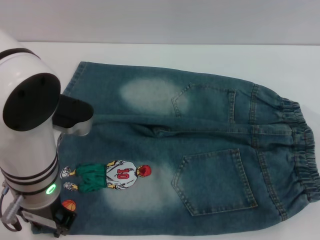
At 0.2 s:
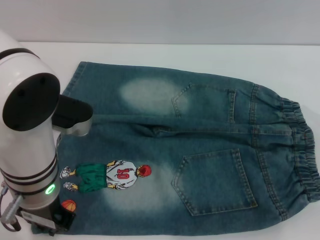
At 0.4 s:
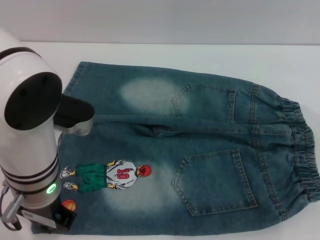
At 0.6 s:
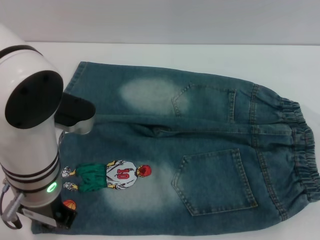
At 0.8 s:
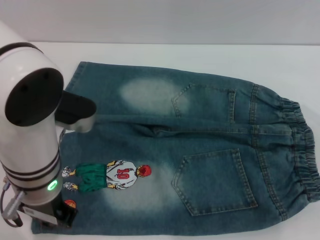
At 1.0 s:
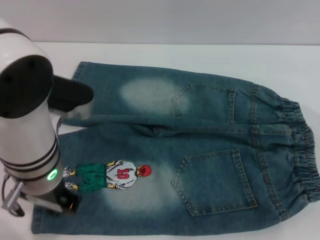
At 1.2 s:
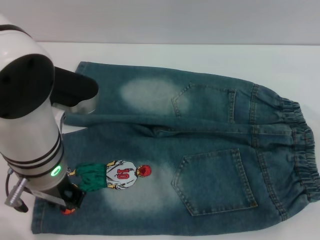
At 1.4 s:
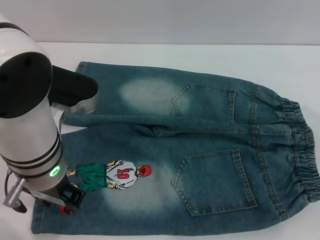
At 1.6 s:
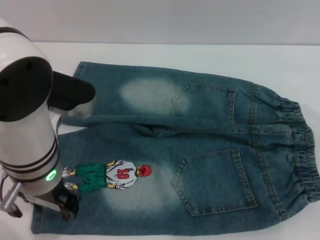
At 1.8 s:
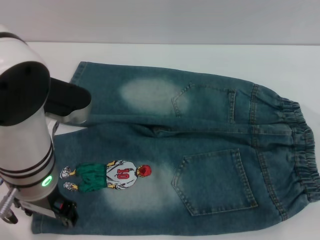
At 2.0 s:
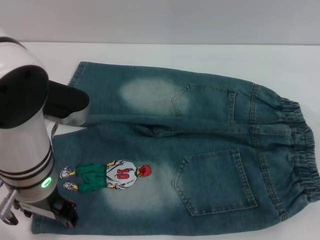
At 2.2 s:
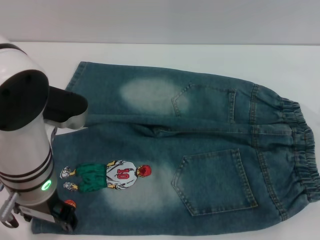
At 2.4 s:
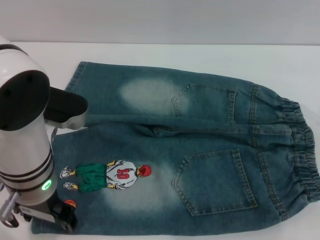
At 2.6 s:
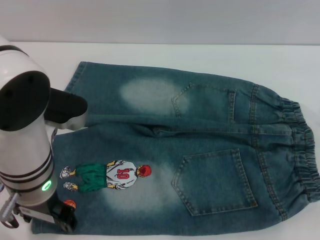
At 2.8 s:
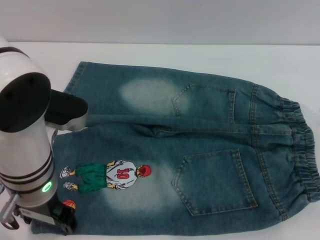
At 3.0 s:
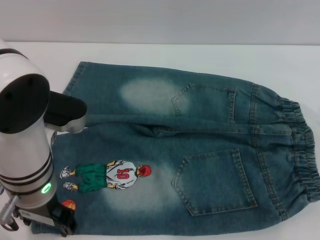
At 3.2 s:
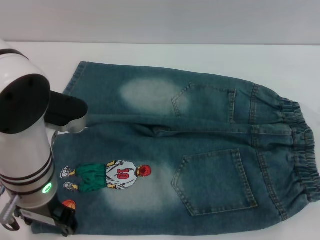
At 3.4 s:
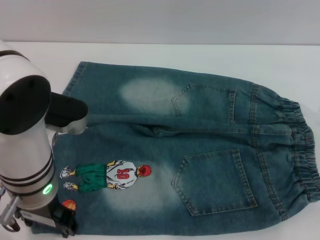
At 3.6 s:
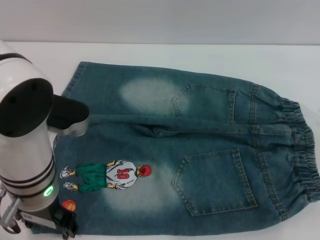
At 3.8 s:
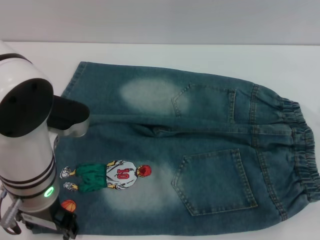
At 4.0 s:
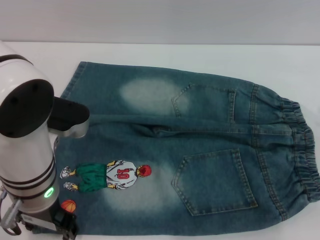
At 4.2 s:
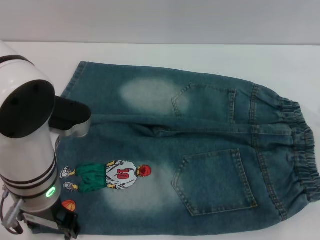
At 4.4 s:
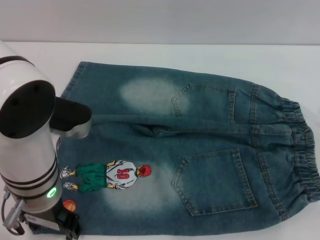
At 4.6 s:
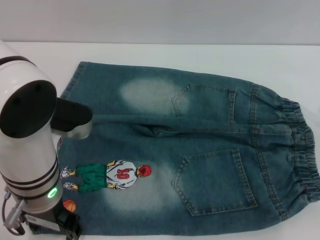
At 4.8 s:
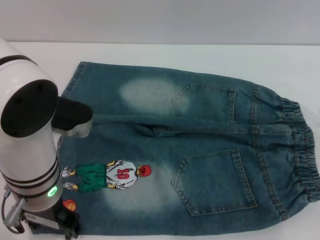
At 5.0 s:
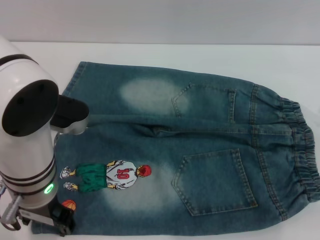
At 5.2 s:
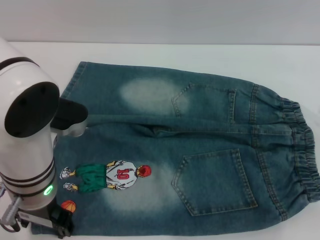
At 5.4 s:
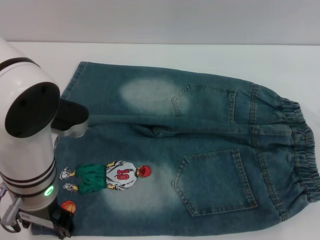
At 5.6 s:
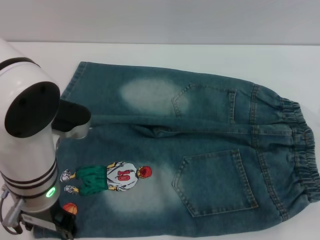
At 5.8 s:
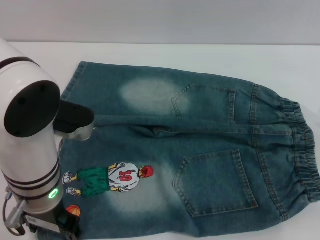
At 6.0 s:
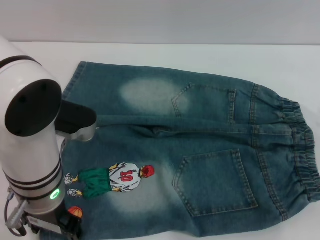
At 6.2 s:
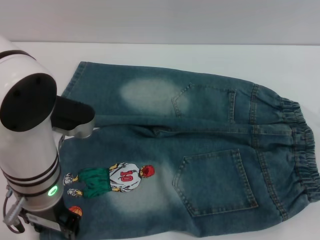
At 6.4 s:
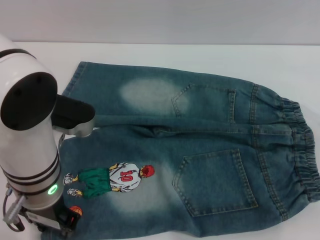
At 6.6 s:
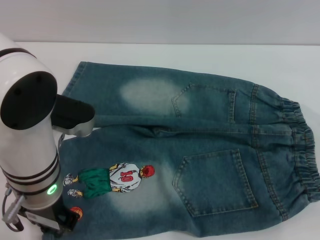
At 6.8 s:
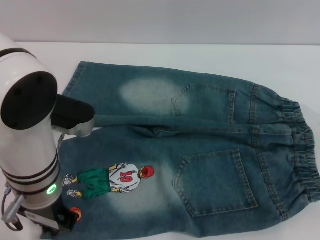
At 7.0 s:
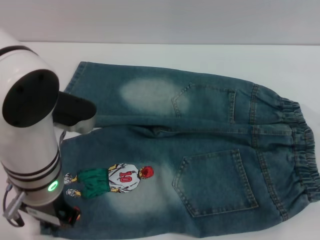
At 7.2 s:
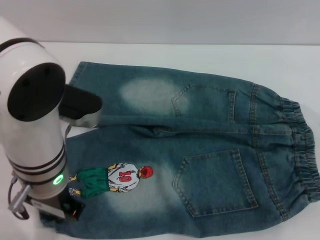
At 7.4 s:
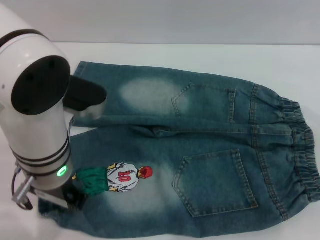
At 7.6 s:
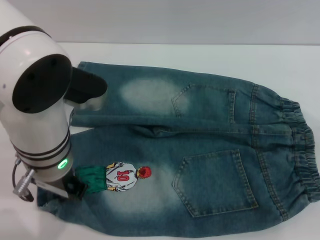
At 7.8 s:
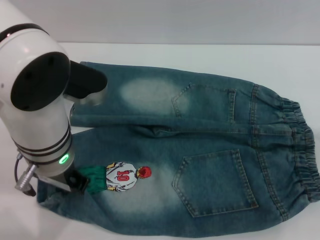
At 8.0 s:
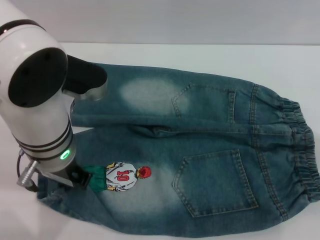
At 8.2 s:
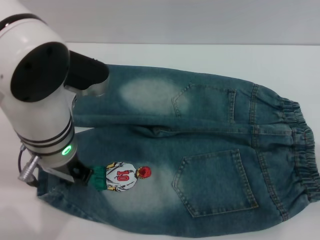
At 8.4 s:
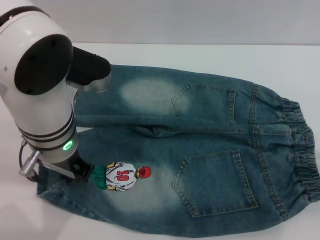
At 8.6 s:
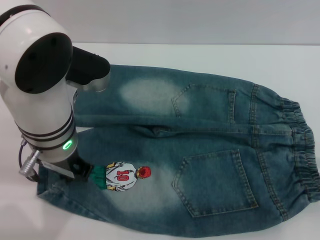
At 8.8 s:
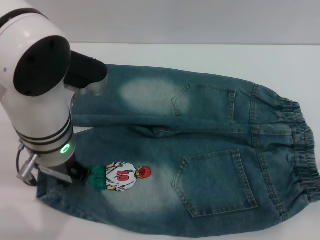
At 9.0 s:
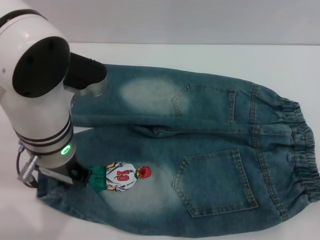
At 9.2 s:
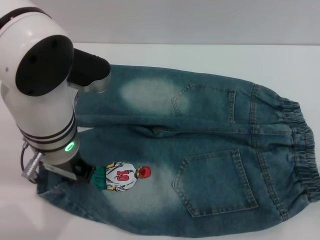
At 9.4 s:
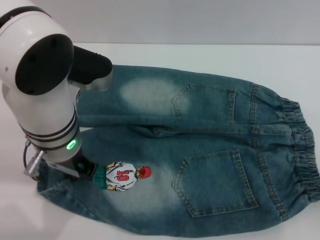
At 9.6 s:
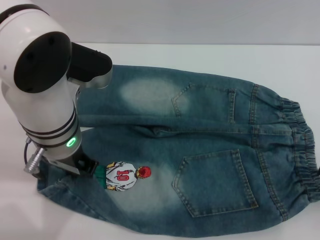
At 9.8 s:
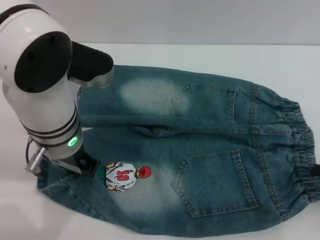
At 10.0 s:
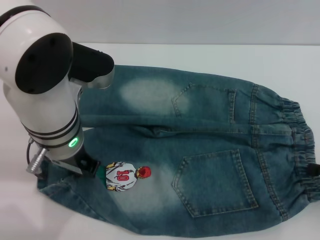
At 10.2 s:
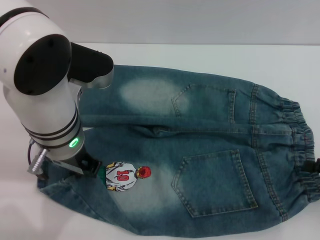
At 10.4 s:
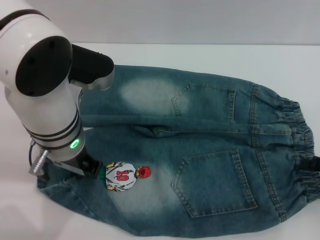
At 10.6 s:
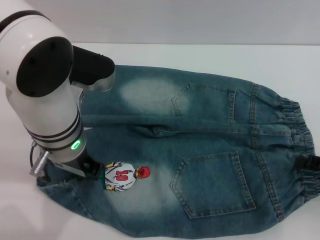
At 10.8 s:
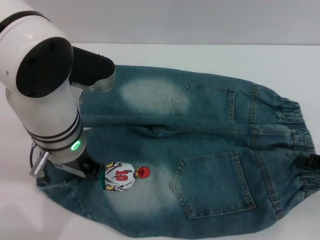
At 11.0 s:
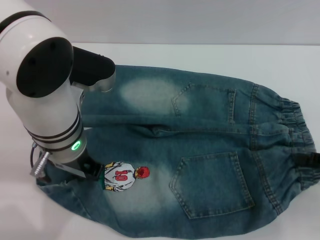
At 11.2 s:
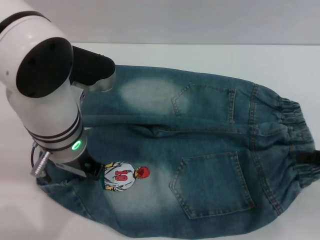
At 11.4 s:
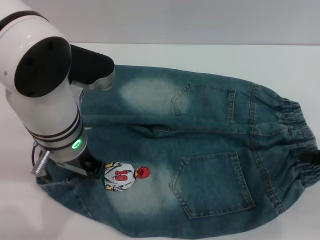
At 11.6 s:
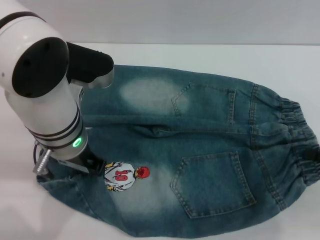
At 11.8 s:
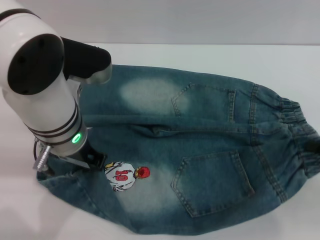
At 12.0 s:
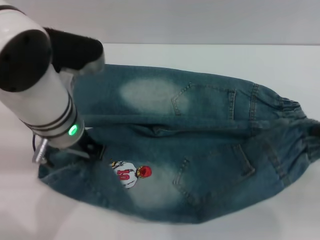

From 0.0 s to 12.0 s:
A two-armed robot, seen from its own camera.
From 0.0 s to 1.6 s: The left gripper closes, then reopens.
From 1.6 s to 3.0 s: The left gripper opens up.
From 3.0 s to 6.0 s: The two grippers keep their place.
From 6.0 s to 7.6 s: The left gripper closes.
From 9.0 s to 10.4 s: The grippers move only a little.
From 10.4 s to 12.0 s: The right gripper closes its fingers.

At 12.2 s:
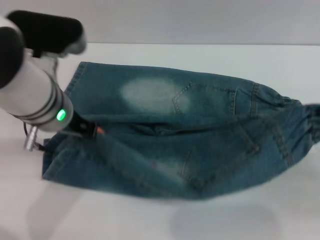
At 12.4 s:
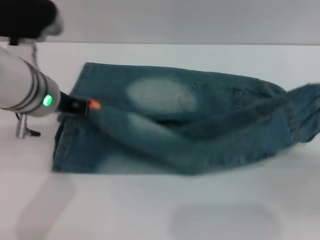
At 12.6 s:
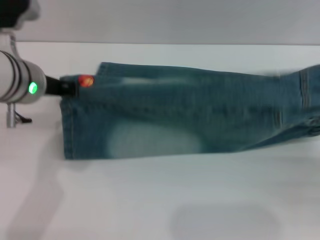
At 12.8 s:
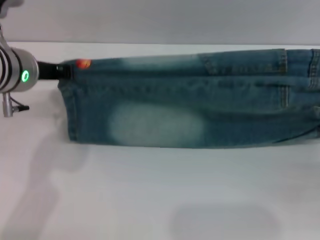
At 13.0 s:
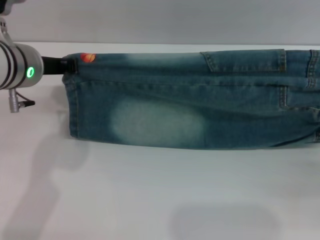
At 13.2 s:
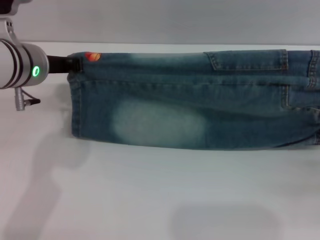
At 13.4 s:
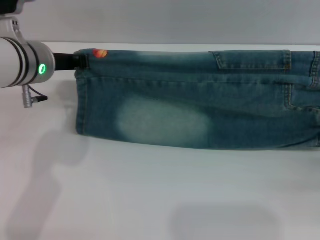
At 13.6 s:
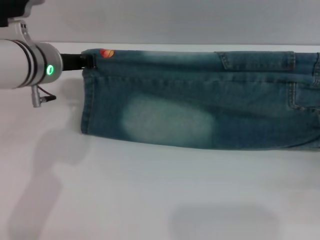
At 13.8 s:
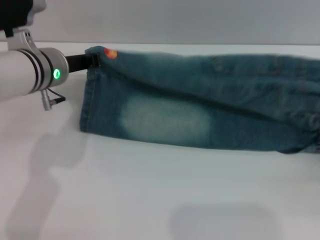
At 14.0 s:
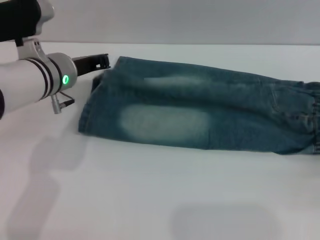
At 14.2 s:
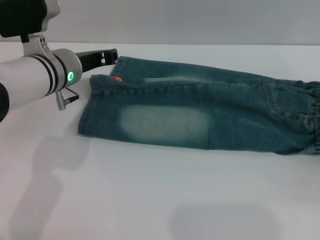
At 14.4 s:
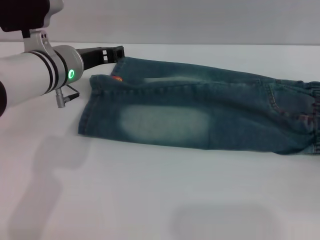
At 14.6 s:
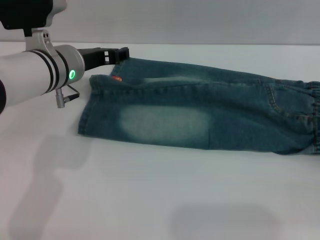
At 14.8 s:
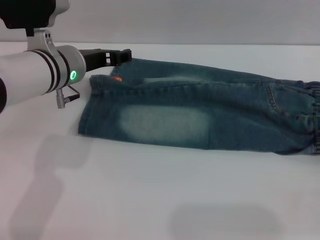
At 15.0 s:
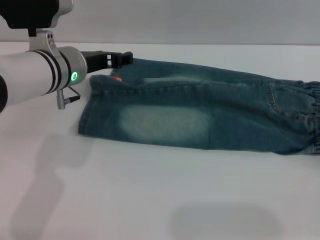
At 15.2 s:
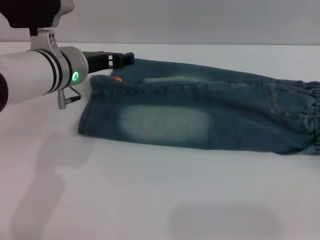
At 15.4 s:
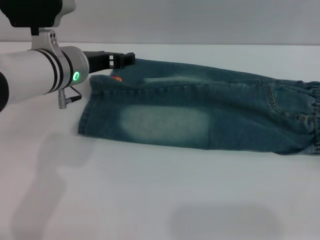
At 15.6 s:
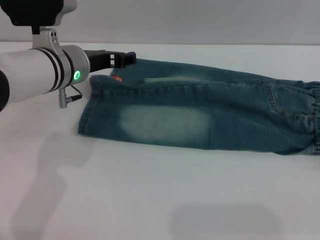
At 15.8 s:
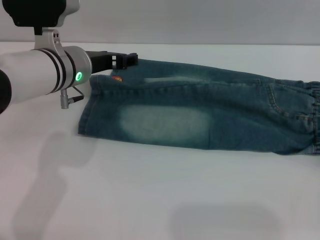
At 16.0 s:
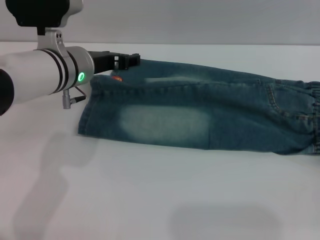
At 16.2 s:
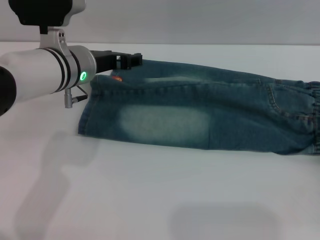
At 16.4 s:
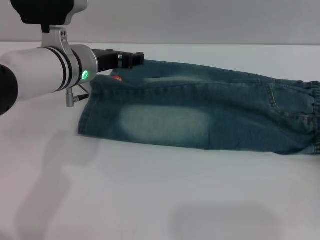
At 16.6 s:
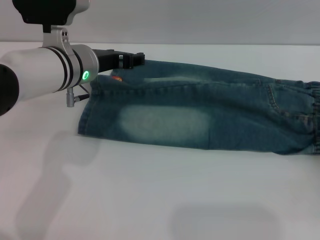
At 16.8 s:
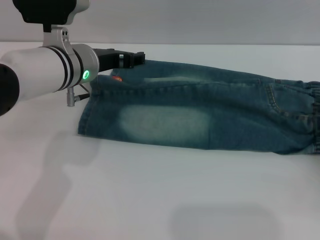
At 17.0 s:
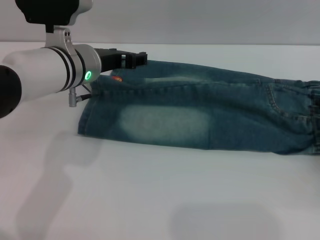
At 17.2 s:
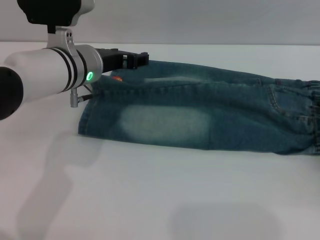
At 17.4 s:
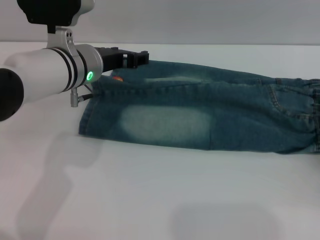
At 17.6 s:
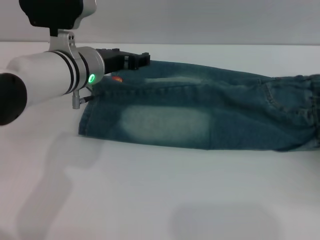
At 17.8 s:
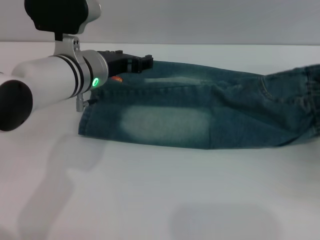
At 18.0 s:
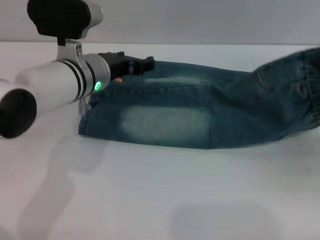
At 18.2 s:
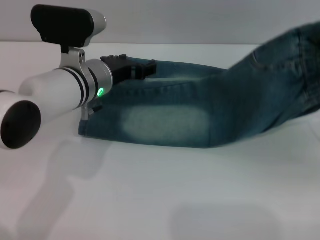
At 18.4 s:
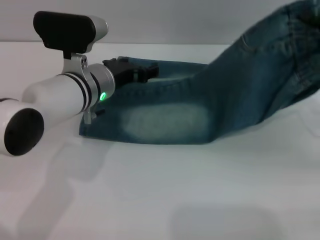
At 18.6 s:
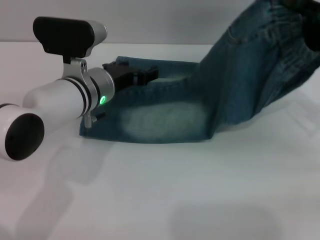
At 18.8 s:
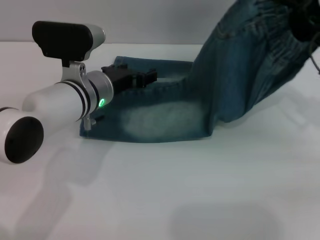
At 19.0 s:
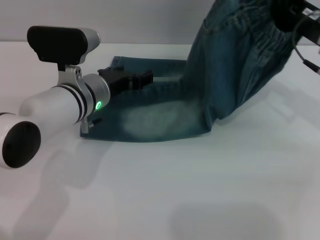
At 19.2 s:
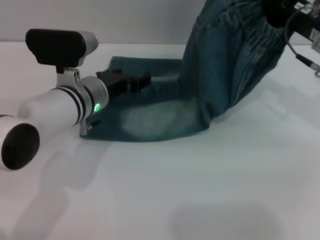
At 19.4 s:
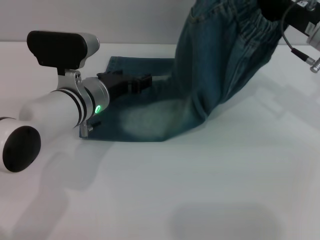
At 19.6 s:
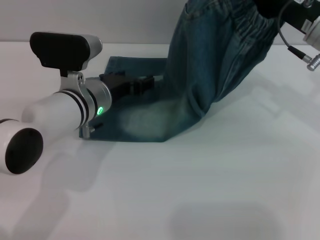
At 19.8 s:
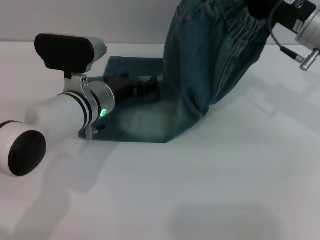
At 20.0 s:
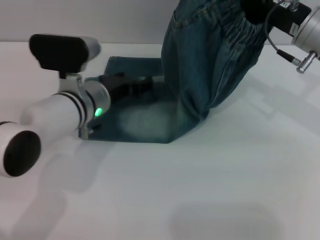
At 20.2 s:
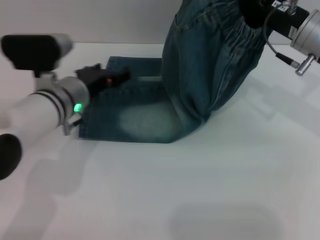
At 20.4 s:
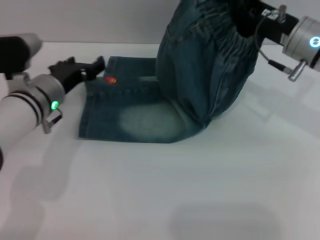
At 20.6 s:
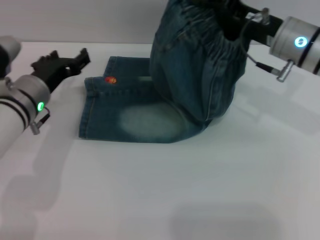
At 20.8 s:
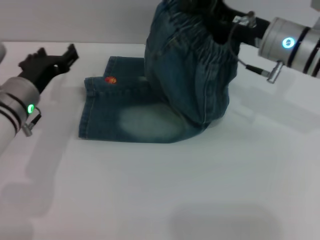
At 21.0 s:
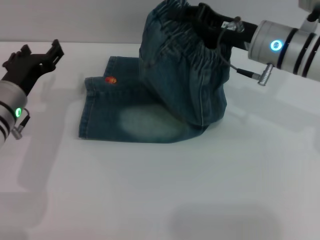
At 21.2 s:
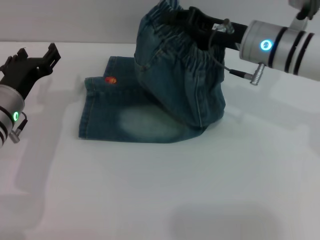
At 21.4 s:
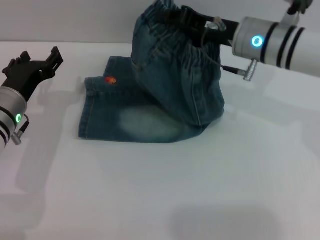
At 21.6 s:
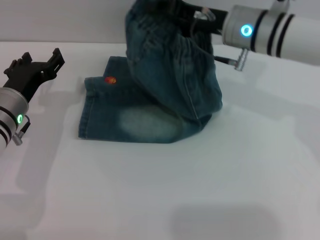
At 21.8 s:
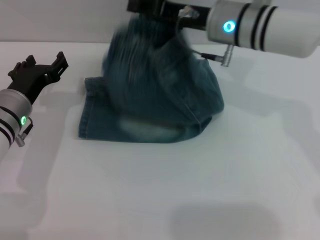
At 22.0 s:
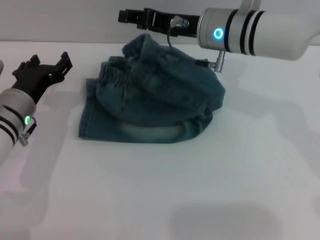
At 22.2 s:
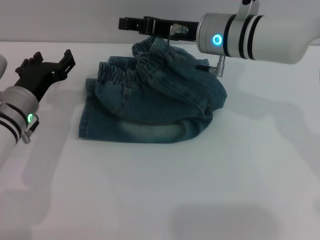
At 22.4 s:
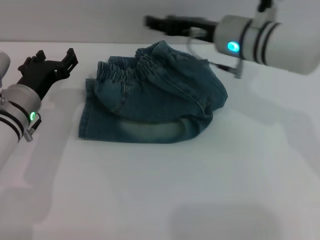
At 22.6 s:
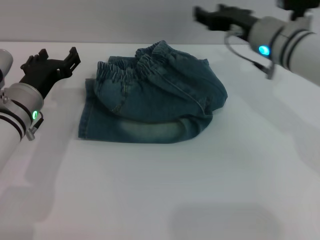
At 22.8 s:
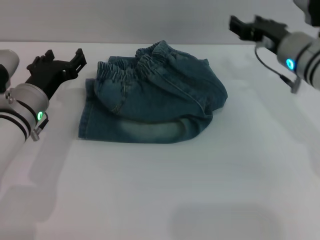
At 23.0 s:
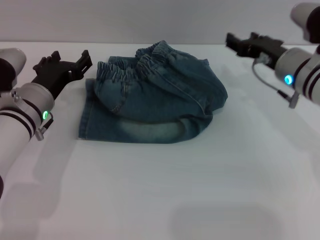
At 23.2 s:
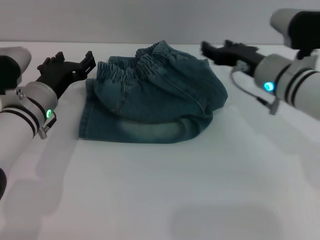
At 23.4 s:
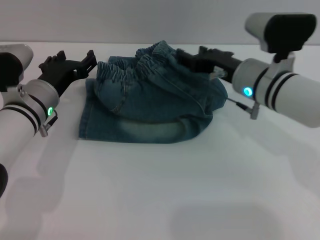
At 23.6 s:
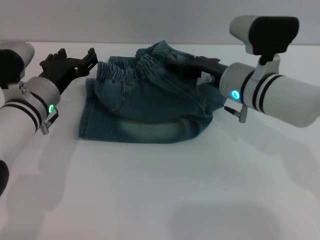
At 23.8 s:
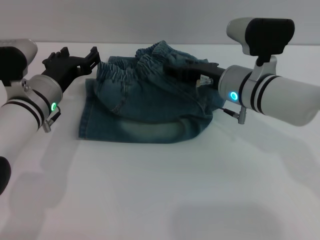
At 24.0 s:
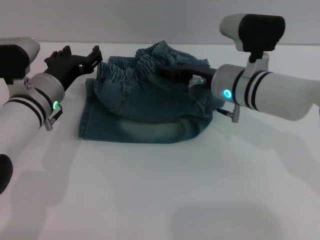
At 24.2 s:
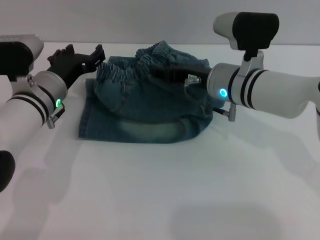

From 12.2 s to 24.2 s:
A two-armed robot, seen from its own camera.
Step, from 12.2 s to 14.4 s: Fold the bottom of the pants upward with both grippers.
From 12.2 s to 13.8 s: The left gripper goes some 5 cm forward. The right gripper ends up roughly 5 cm from where it was.
From 13.8 s to 15.2 s: The left gripper opens its fingers; the right gripper opens.
From 15.2 s to 16.6 s: The grippers make only small movements.
From 16.6 s to 18.2 s: The right gripper moves upward and forward, some 10 cm, and closes.
From 18.2 s to 19.8 s: The right gripper travels to the left, forward and upward by some 15 cm.
From 19.8 s to 21.2 s: The right gripper travels to the left by some 5 cm. The left gripper shifts about 10 cm to the left.
From 21.2 s to 22.6 s: The right gripper opens its fingers.
From 22.6 s to 24.2 s: The right gripper is displaced to the left by some 5 cm.
